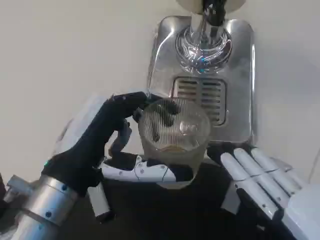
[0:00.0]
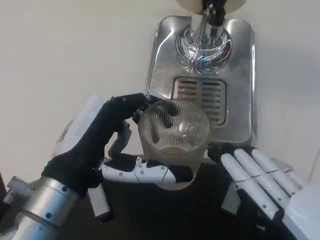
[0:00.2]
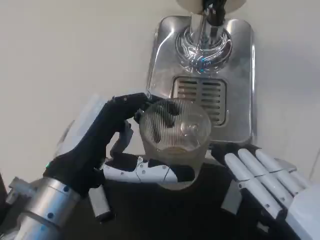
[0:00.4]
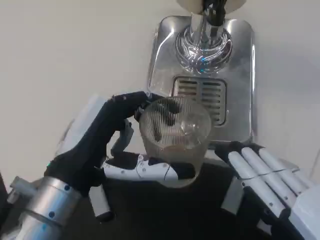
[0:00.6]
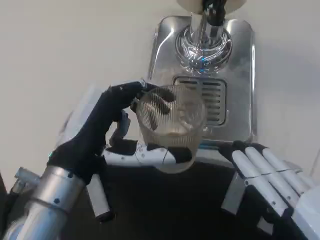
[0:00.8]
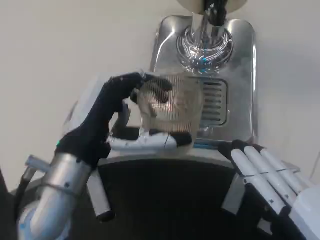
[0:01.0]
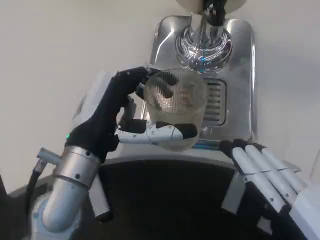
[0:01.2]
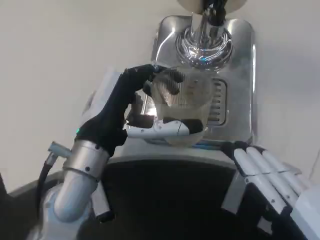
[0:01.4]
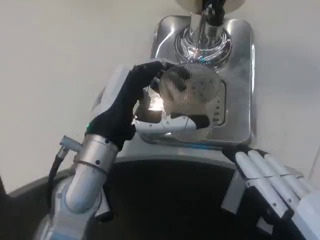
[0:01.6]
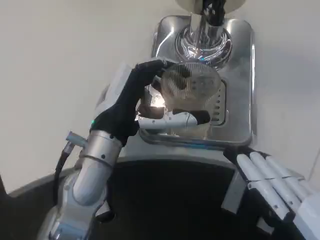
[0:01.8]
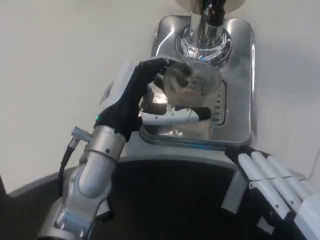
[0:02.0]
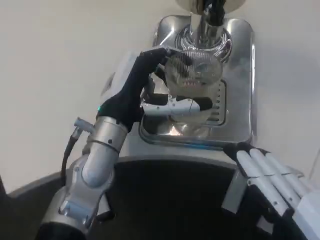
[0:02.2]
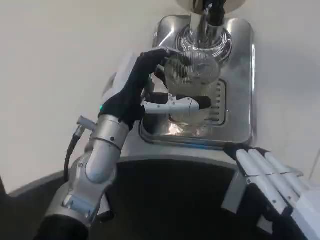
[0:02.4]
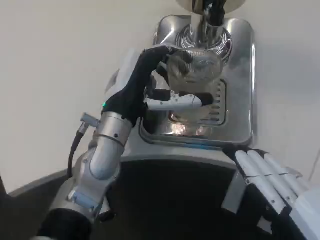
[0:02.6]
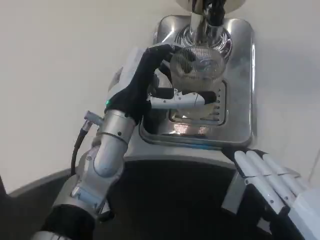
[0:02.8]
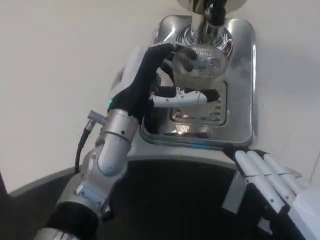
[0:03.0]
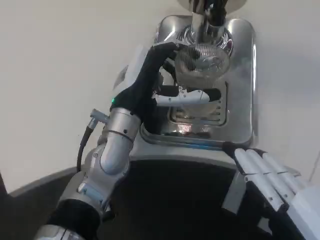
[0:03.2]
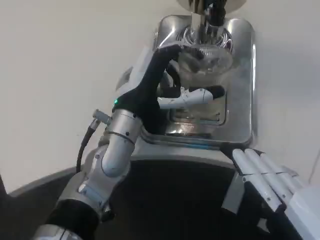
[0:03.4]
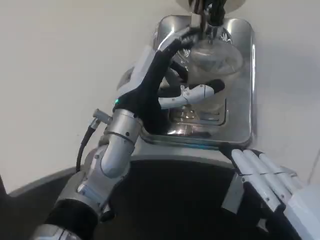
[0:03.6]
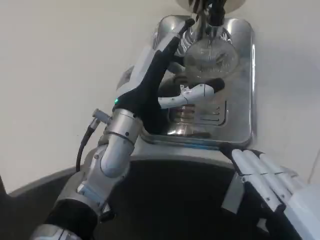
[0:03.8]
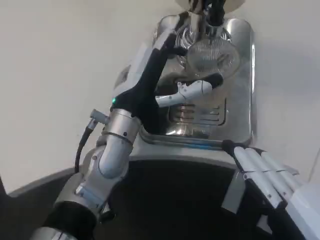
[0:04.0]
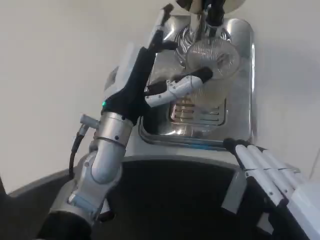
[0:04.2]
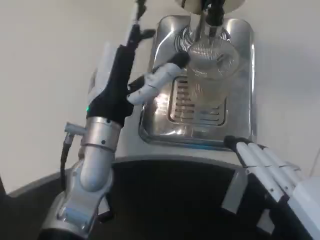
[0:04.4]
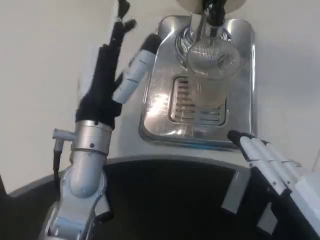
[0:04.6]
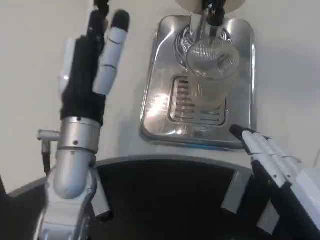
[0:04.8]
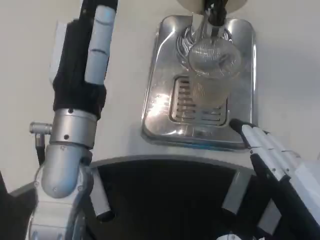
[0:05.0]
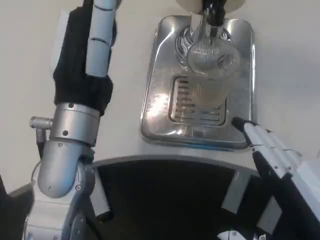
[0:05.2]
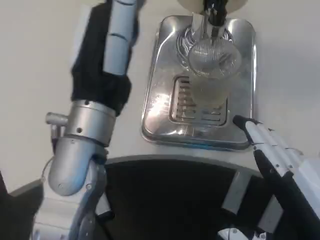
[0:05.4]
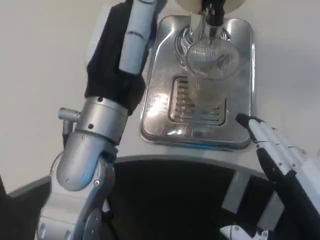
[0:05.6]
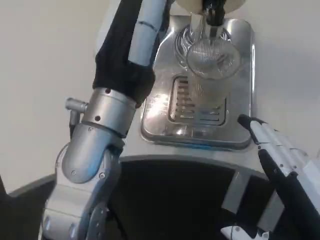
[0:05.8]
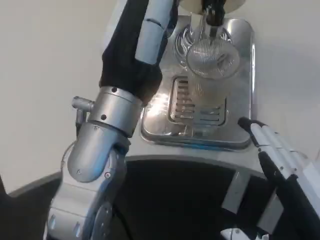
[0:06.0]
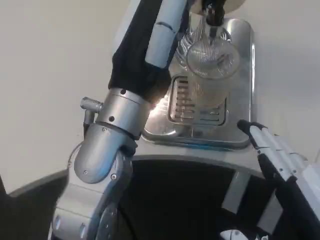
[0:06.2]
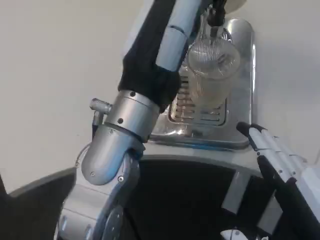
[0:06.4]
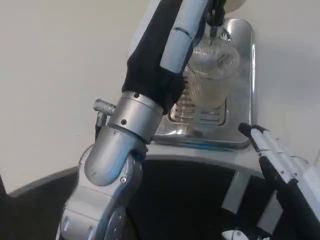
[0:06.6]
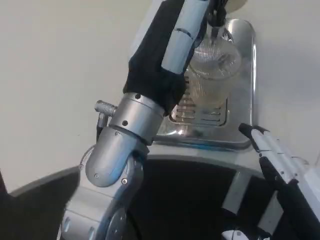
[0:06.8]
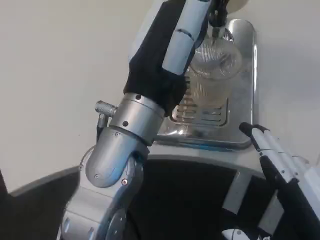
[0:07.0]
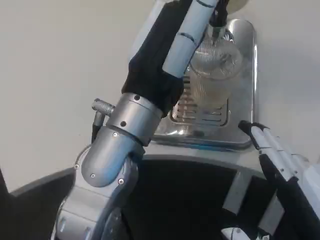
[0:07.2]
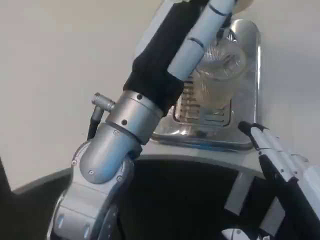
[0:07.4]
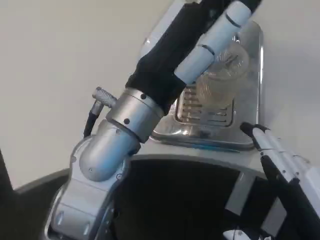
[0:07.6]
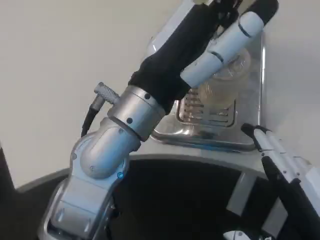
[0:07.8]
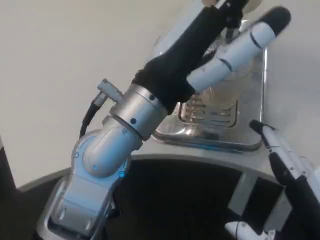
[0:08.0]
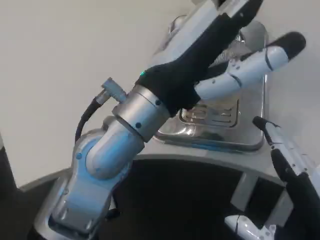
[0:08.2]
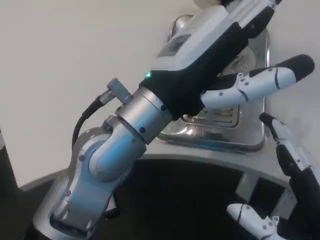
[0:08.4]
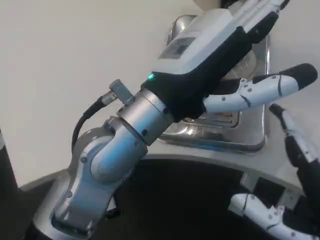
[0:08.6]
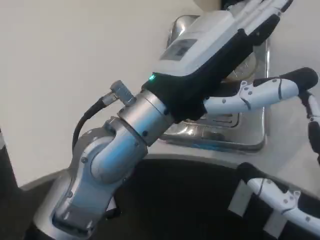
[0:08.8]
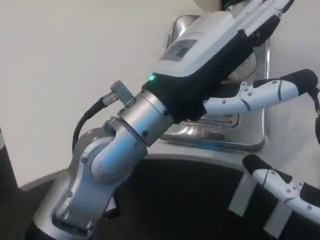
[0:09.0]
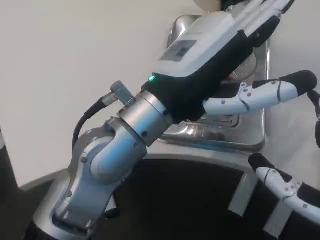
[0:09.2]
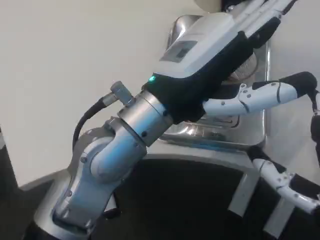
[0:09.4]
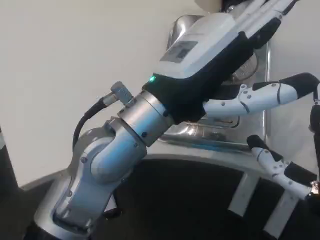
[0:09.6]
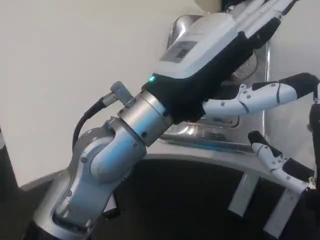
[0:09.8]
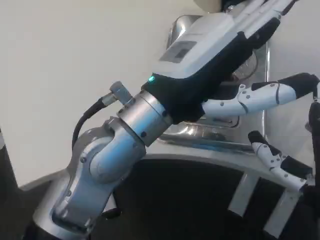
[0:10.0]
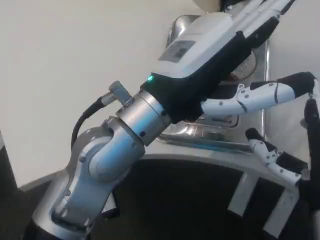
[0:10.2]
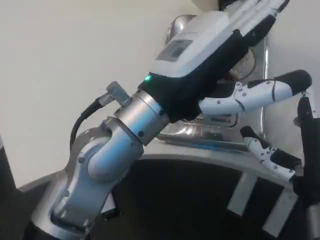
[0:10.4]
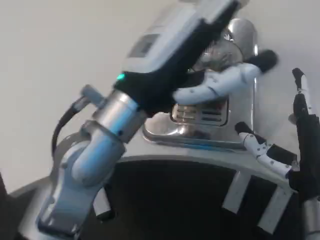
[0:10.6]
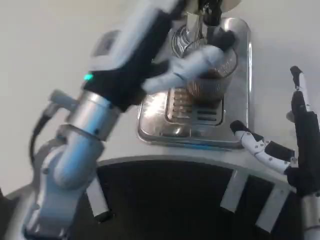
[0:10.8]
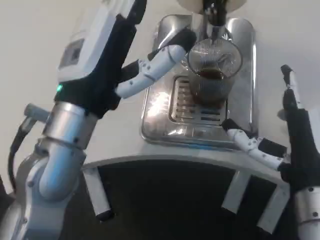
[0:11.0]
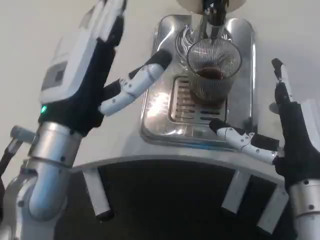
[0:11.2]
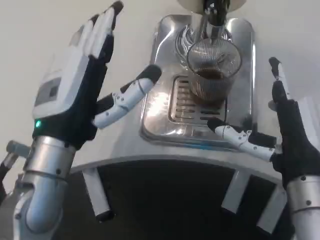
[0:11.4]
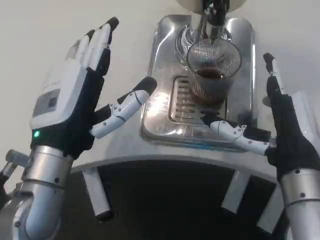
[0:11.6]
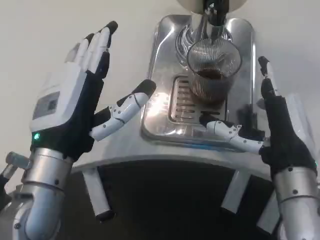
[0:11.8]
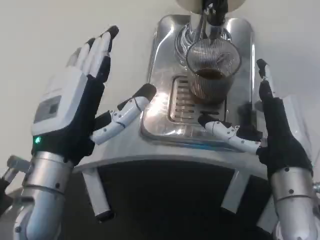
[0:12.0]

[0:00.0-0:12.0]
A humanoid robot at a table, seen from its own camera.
Task of the whole recording: Grasp the cup under the faucet to collect the drink, then remove the cup.
0:00.0 to 0:01.6: The left hand heads forward, covering some 10 cm.
0:01.6 to 0:03.0: The left hand shifts approximately 5 cm forward.
0:04.4 to 0:06.0: The left hand heads upward and backward, covering roughly 10 cm.
0:09.0 to 0:10.4: The right hand travels forward by some 5 cm.
0:10.4 to 0:12.0: The left hand moves to the left and downward, approximately 10 cm. Meanwhile the right hand shifts about 5 cm forward.

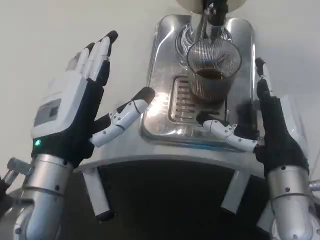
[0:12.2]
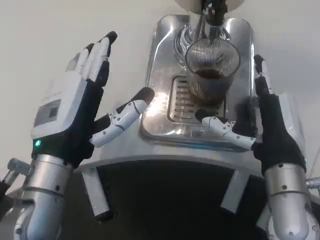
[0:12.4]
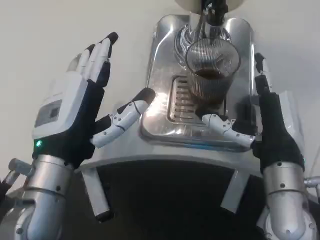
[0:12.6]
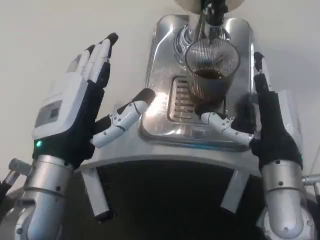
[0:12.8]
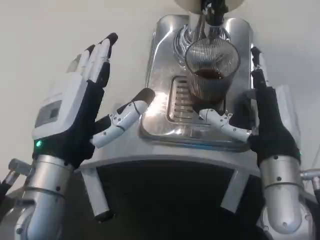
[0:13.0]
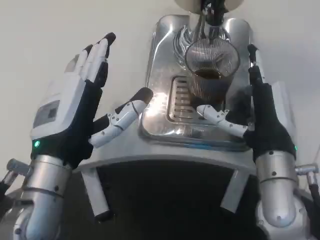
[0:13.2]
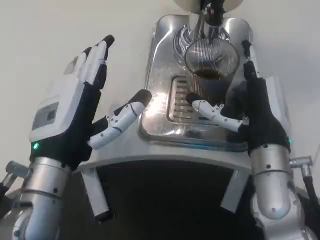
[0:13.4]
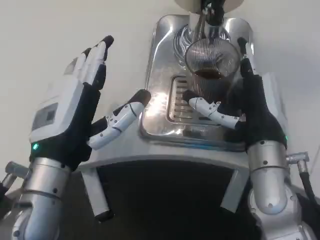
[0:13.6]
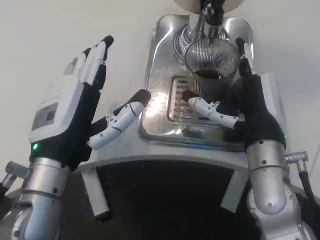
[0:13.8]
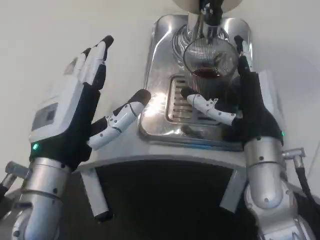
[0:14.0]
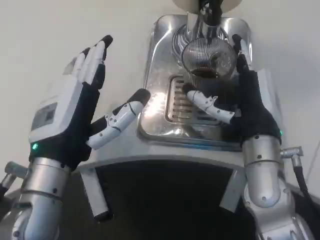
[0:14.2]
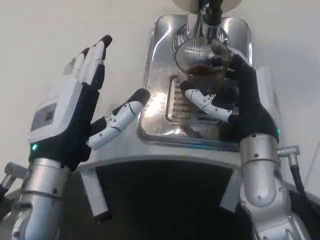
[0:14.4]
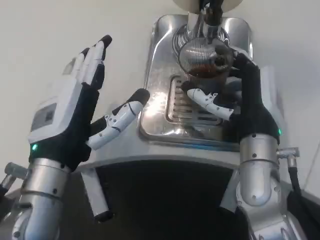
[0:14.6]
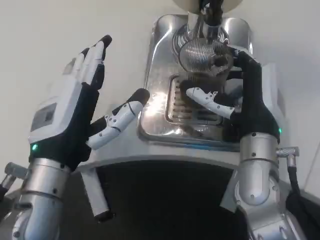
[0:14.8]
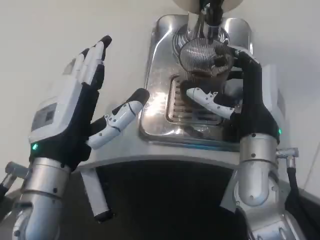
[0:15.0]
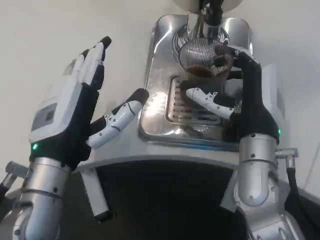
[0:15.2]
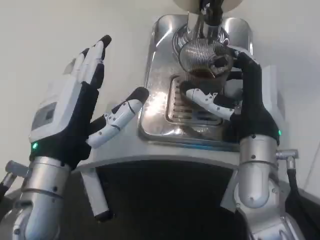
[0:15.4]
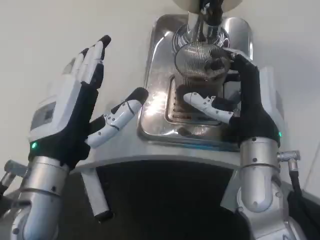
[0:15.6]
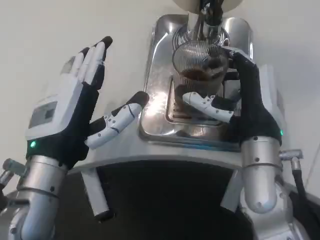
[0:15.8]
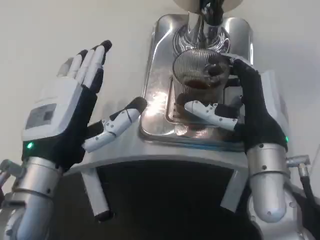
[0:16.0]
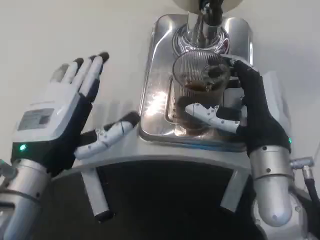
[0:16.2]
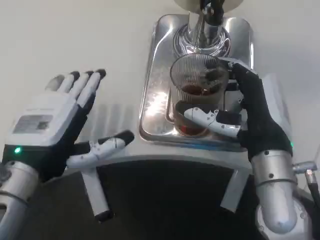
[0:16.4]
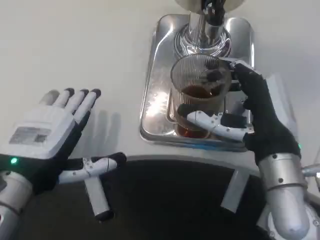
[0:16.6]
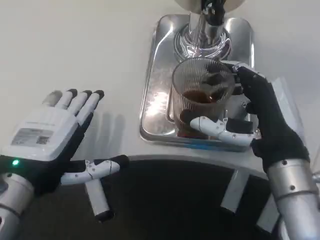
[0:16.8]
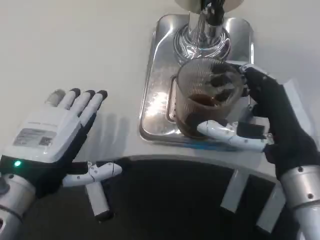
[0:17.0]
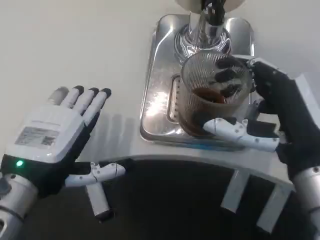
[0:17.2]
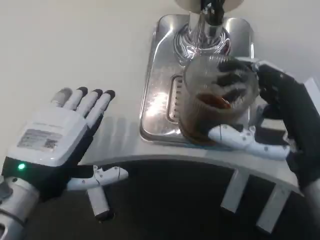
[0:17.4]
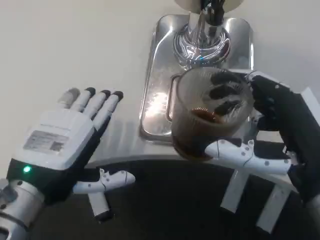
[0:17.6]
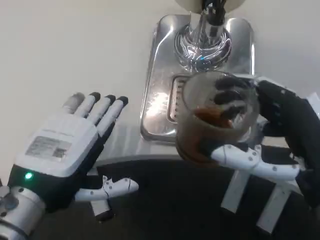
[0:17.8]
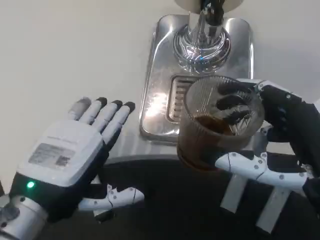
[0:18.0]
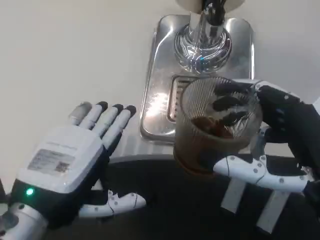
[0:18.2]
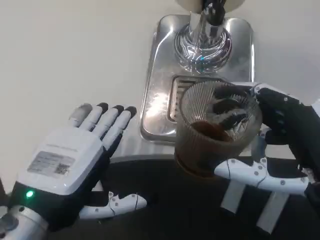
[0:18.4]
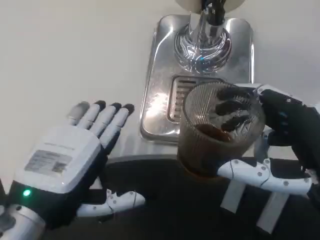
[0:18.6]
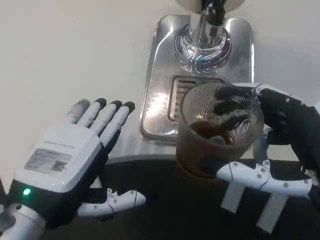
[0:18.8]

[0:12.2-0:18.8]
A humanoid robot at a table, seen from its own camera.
Task of the whole recording: Grasp the cup under the faucet to collect the drink, then remove the cup.
0:13.8 to 0:15.4: The hands stay close to where they were, moving slightly.
0:15.4 to 0:17.2: The right hand shifts some 10 cm backward and to the right.
0:17.2 to 0:18.8: The right hand shifts some 5 cm backward.

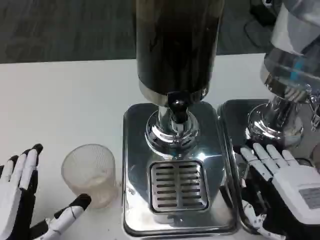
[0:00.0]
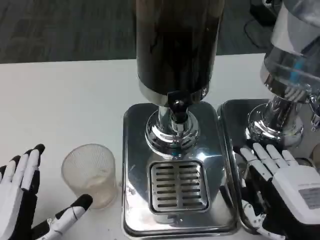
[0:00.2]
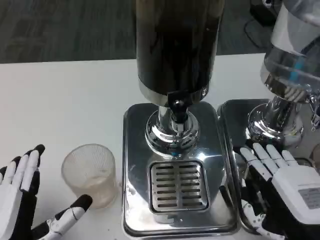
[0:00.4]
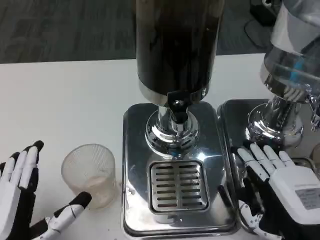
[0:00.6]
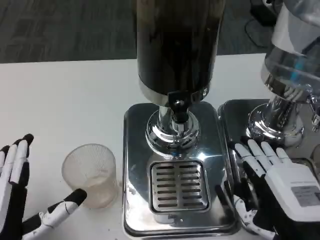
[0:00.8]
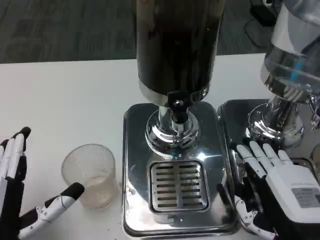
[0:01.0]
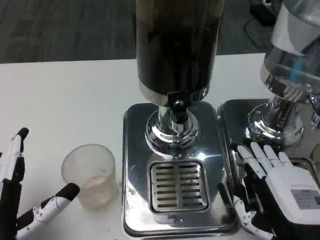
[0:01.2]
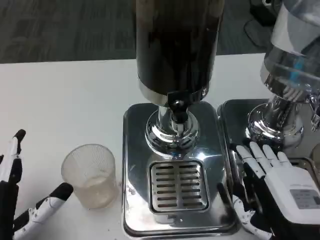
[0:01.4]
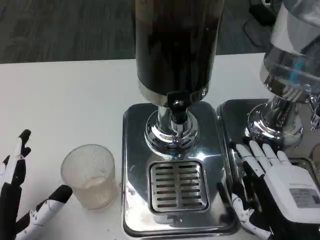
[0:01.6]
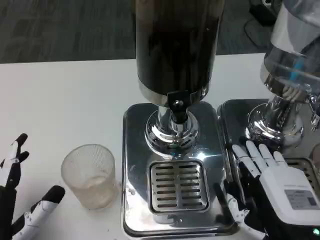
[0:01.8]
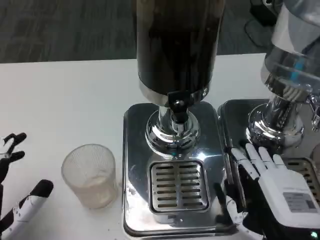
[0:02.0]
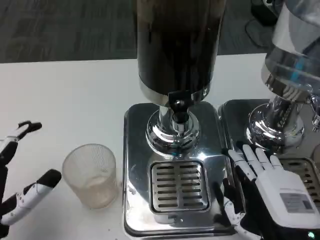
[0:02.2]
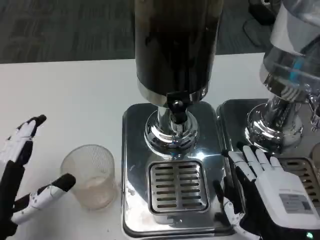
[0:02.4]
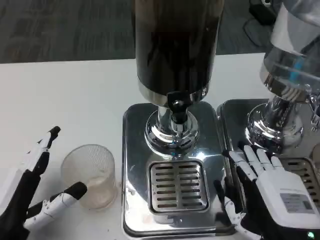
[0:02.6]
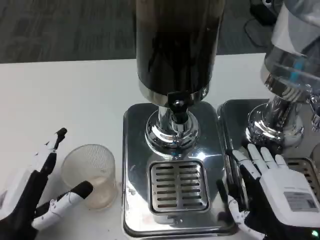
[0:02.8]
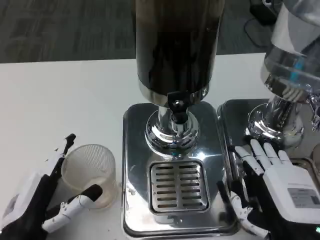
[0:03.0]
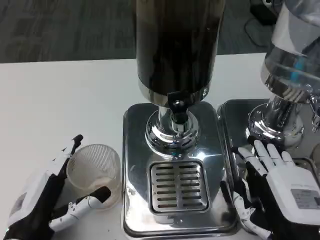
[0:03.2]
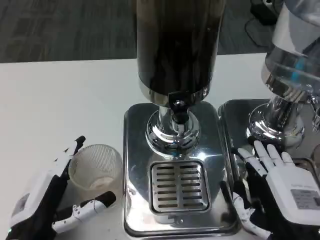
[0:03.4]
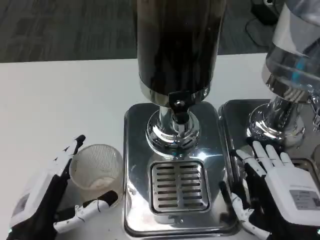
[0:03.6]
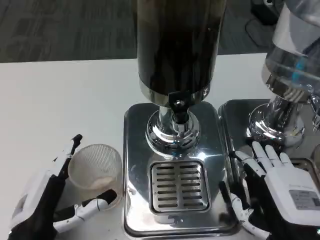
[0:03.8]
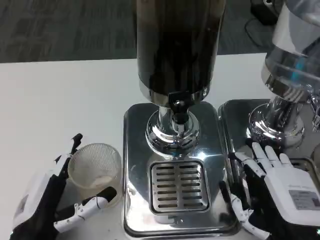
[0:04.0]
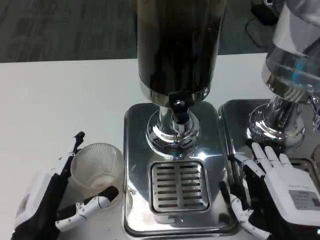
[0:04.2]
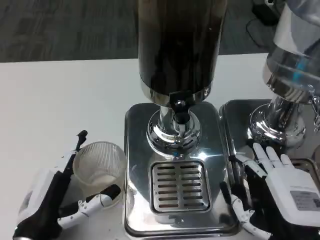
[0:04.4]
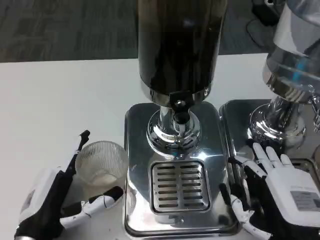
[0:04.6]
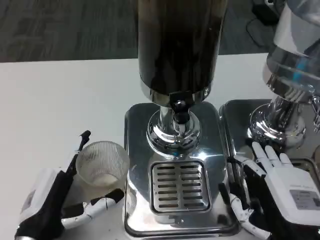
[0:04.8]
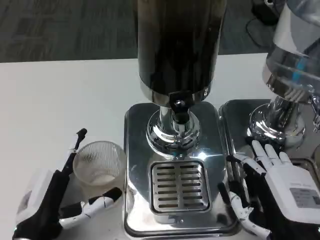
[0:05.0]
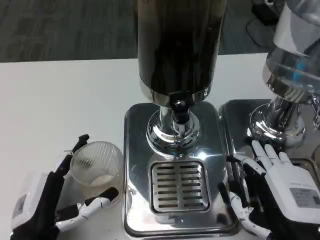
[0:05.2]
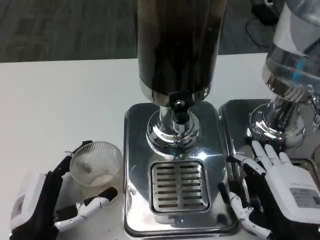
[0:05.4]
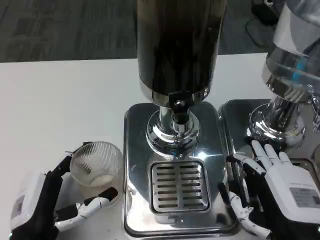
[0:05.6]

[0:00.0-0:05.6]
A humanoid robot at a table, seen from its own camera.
Task of the whole recording: Grasp the cup under the faucet to collect the drink, then remove the cup.
0:01.4 to 0:05.6: The hands make only small movements.
